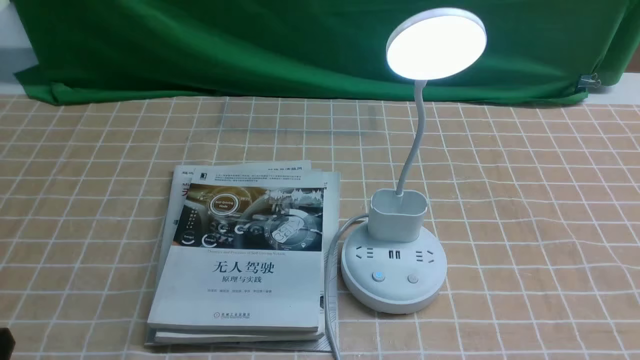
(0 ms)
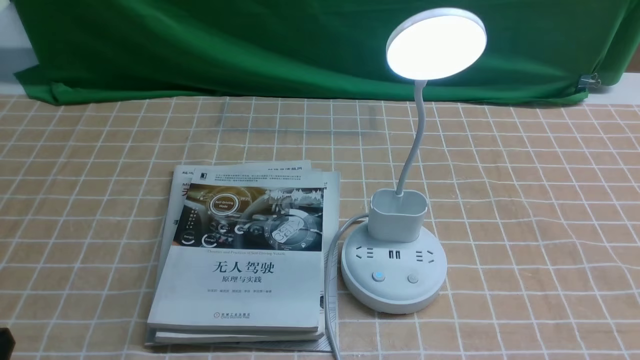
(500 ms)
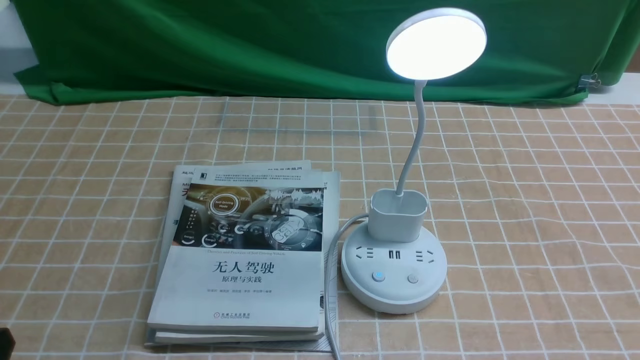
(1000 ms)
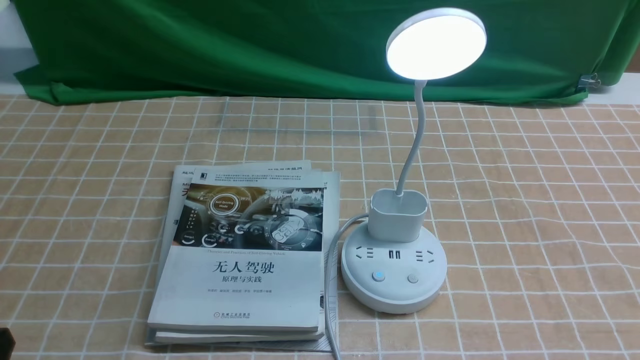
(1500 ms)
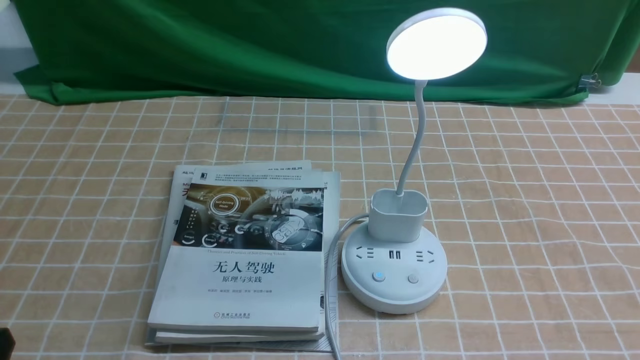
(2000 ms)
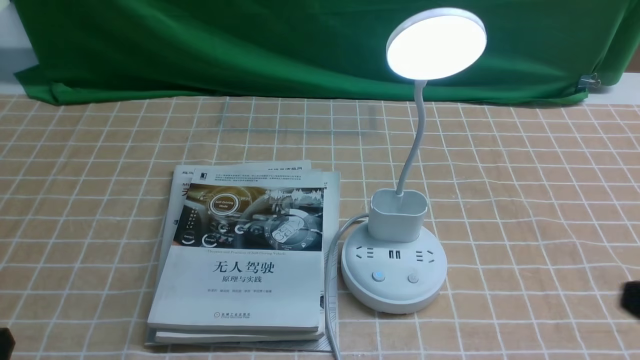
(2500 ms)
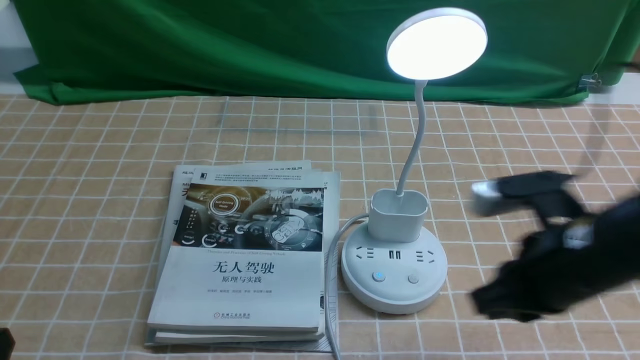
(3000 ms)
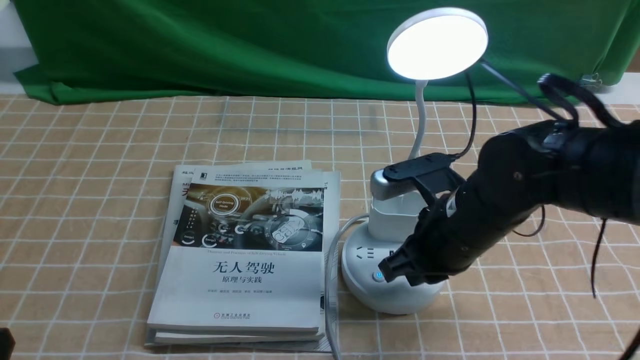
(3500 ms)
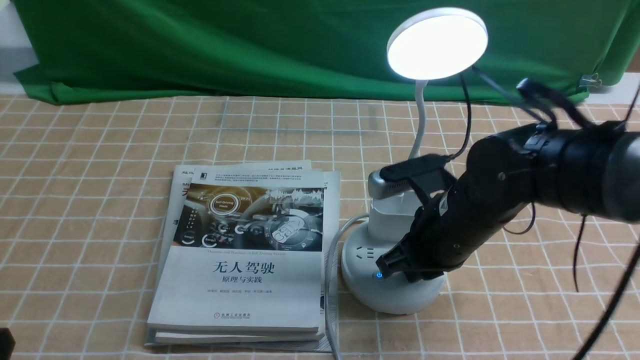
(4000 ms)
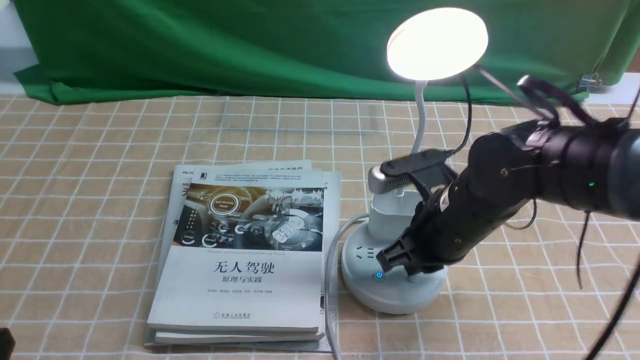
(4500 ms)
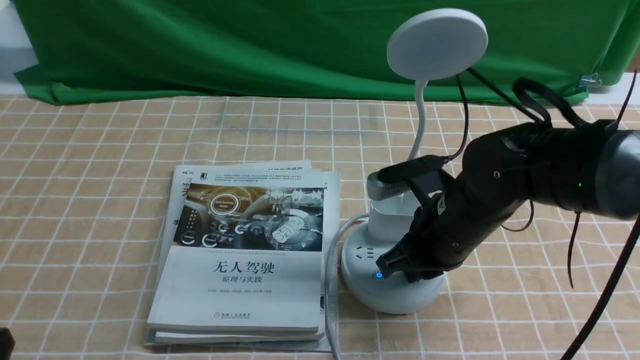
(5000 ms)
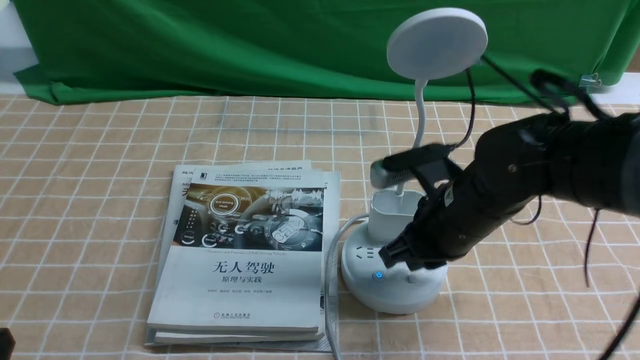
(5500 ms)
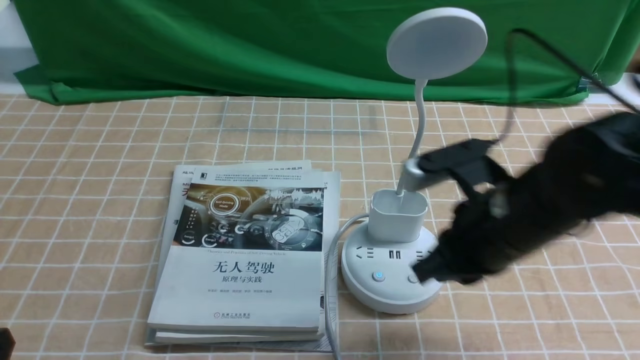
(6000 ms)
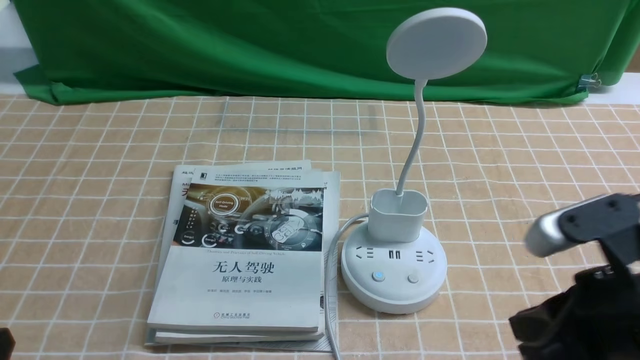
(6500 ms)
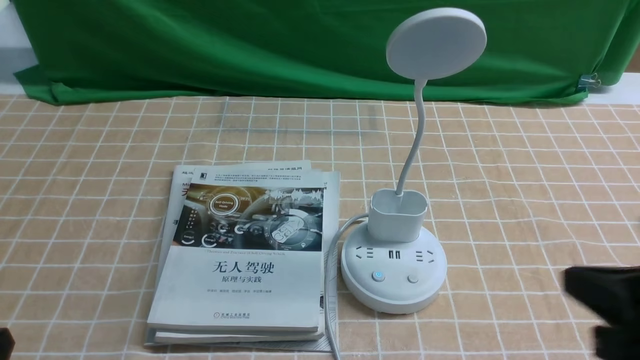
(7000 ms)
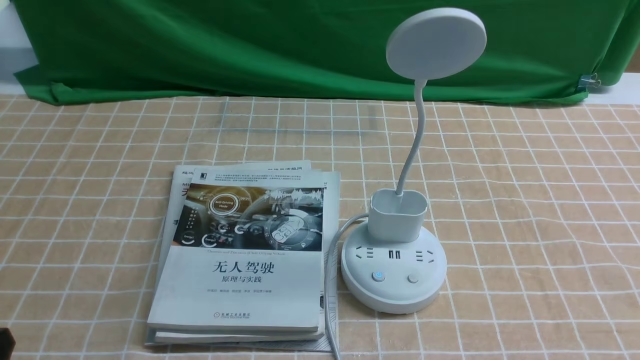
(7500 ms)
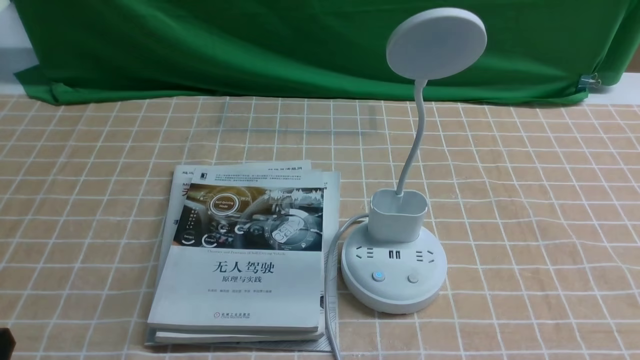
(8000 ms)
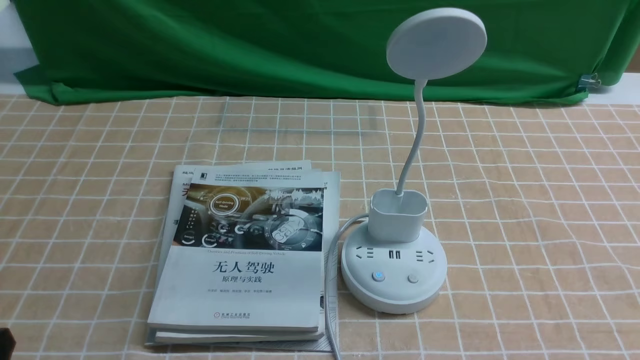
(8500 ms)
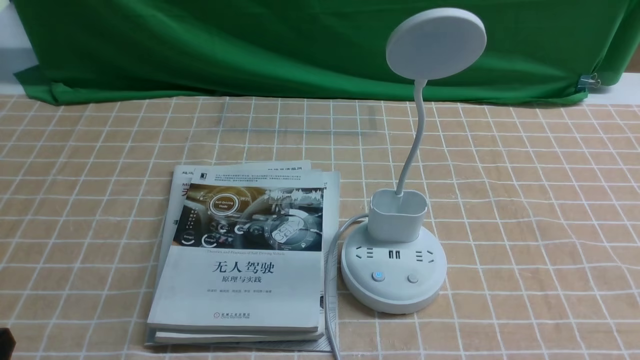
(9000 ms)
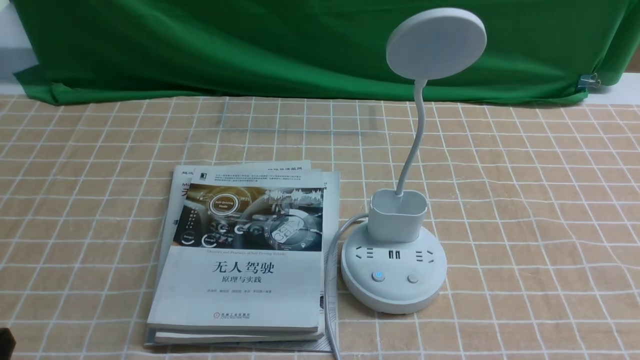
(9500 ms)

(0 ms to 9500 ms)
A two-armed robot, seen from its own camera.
Task of the whole recording: turn off the desk lamp on the light coffee tablecloth by hand.
Step, 0 ms - 5500 ms: use the right arm to press the button switch on the lamp holder.
2000 ms - 4000 ms: The right gripper heads forward and to the left, covering approximately 30 cm, and closes.
4000 ms - 5500 ms: The grippers stay close to where they were, moving slightly.
5500 ms - 7500 ms: The right gripper heads backward and to the right, covering approximately 30 cm.
